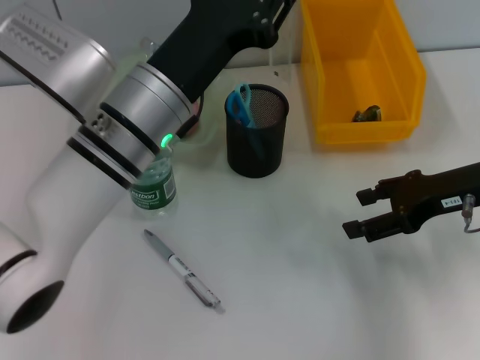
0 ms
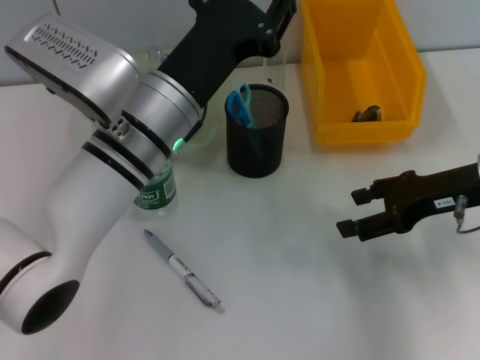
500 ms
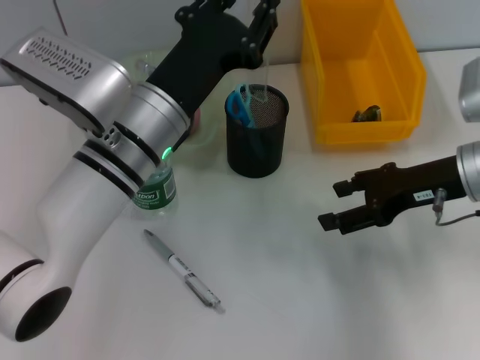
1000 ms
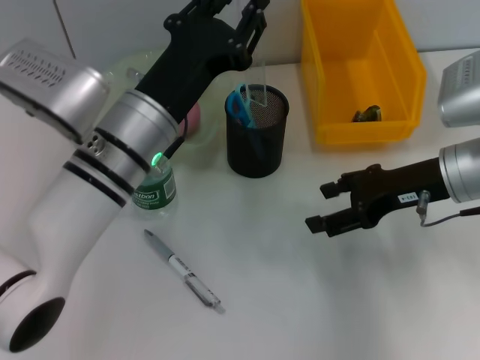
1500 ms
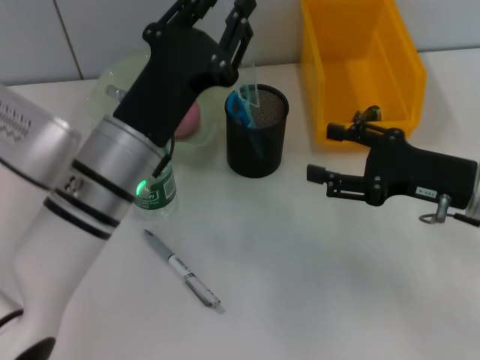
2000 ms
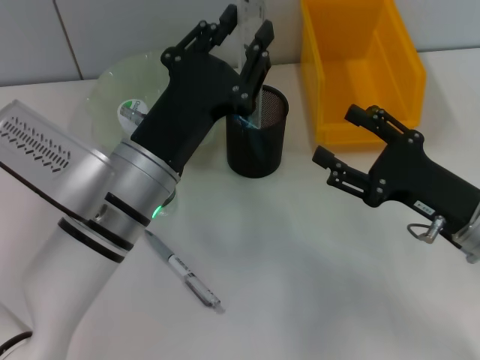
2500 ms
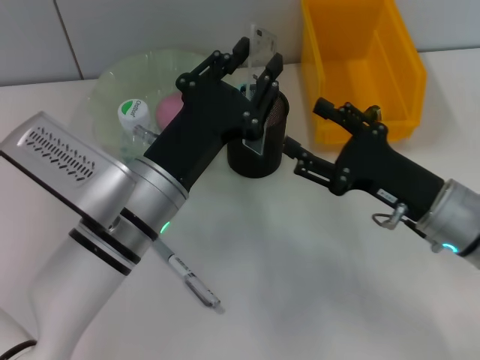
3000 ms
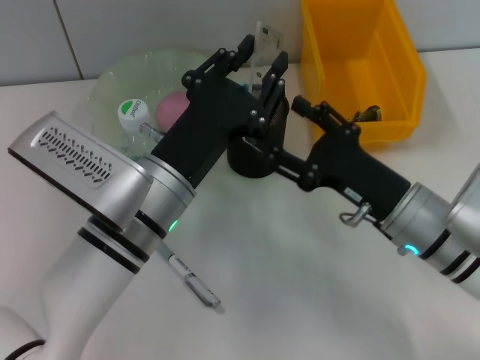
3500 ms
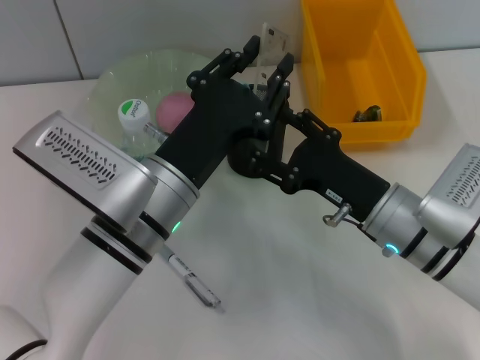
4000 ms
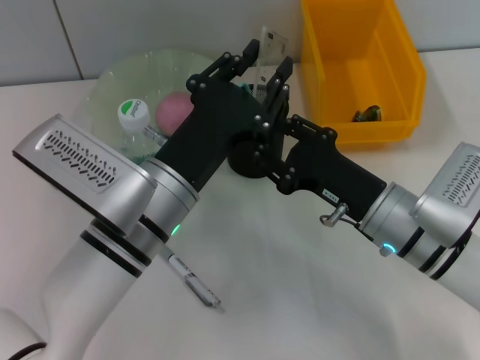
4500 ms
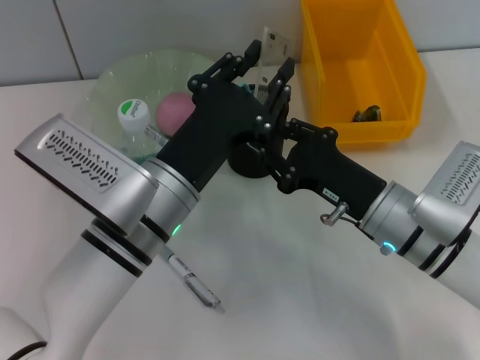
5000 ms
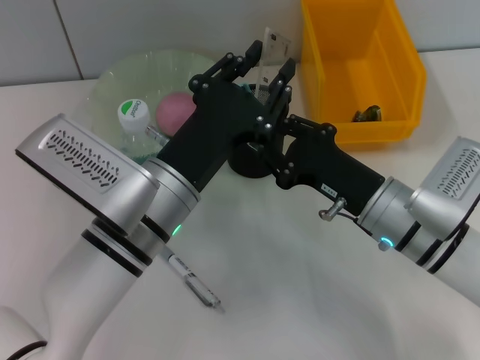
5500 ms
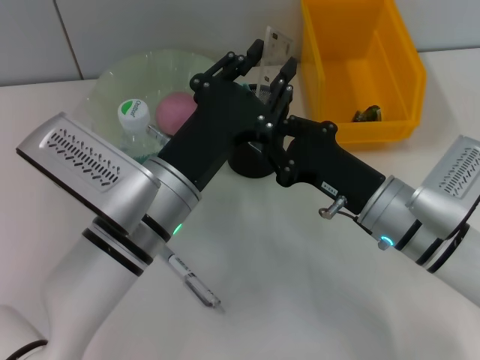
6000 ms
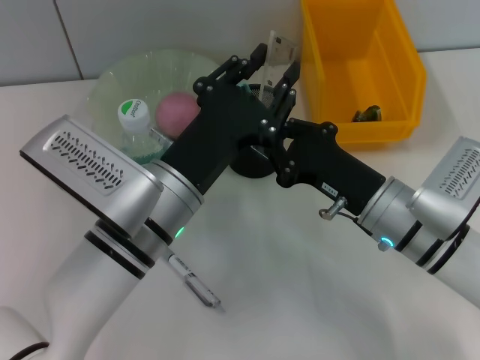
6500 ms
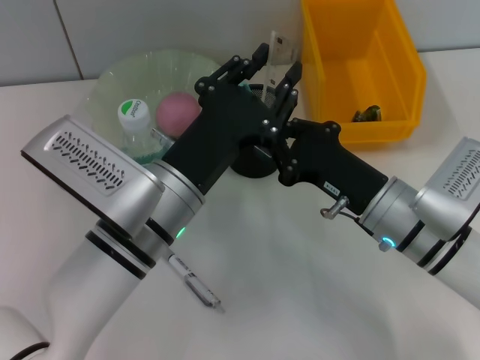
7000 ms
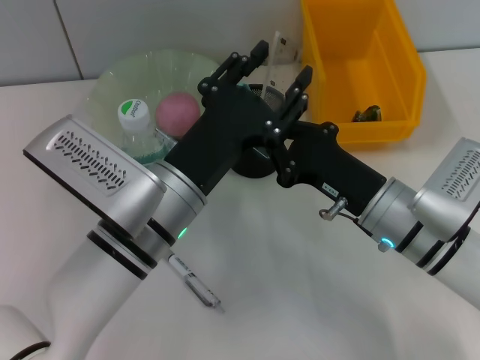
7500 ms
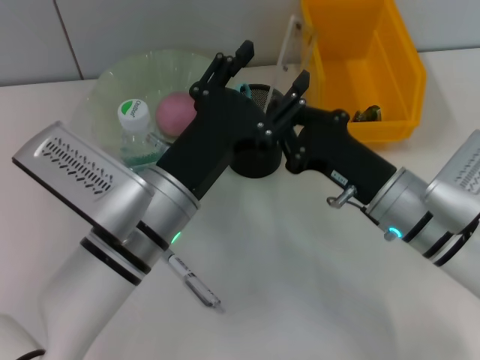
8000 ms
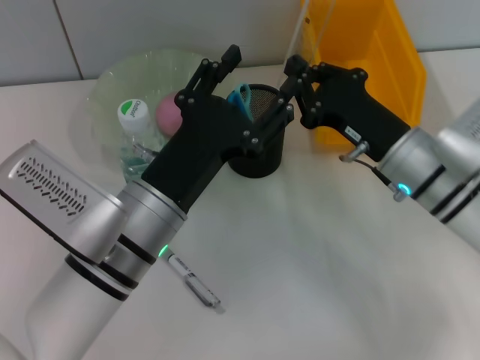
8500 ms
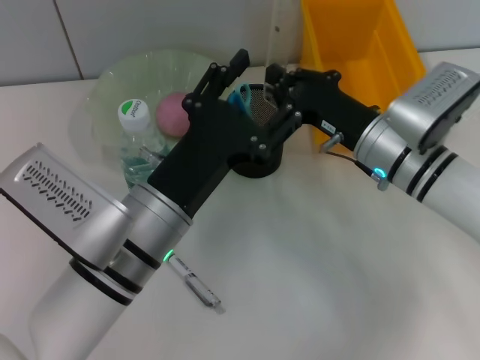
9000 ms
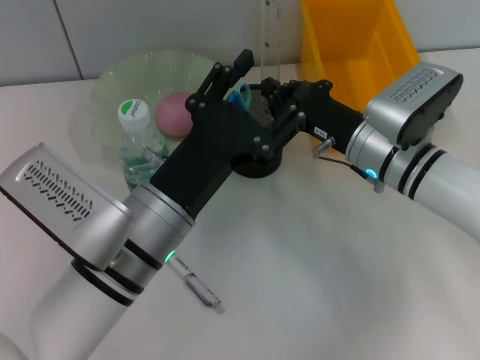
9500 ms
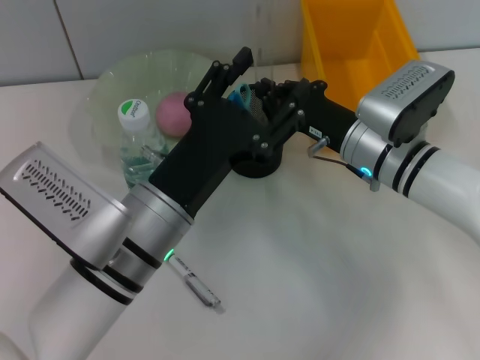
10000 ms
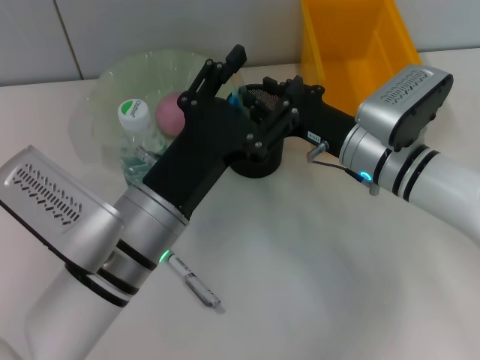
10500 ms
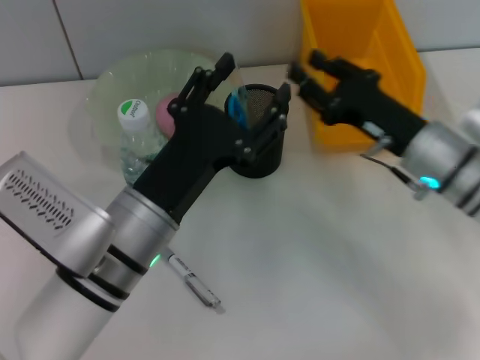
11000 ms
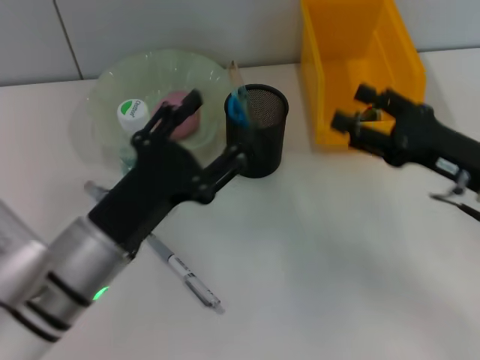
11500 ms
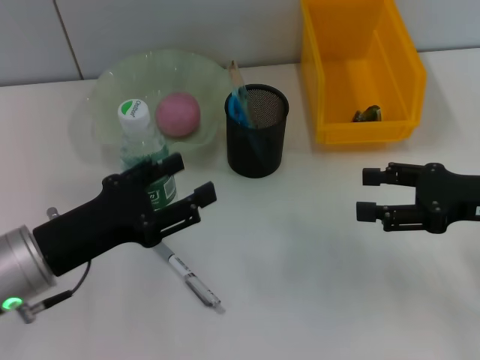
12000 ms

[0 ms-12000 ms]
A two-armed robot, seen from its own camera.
Step, 0 ms to 7500 ms: Pass the ruler from the left hand to the right hand.
Step, 8000 ms to 10500 ms: Place the ruler into the pen holder with the right hand.
2000 ms to 4000 ms: The right gripper goes approximately 10 cm to the left.
4000 ms to 6000 ms: The right gripper closes its fingers.
6000 ms to 8000 ms: The left gripper opens up.
8000 ms to 10000 ms: The right gripper shifts about 5 cm forward.
10000 ms to 12000 ms: The left gripper heads to the left, covering about 10 cm, while the right gripper heads to the right and backward, covering roughly 15 cm, and opens its fingers.

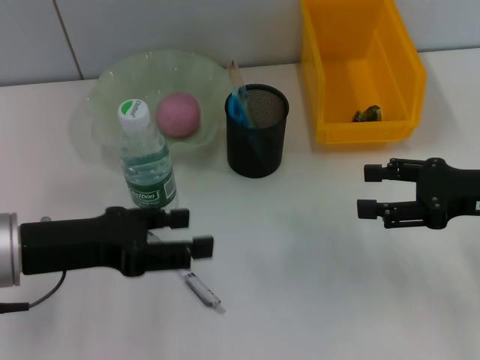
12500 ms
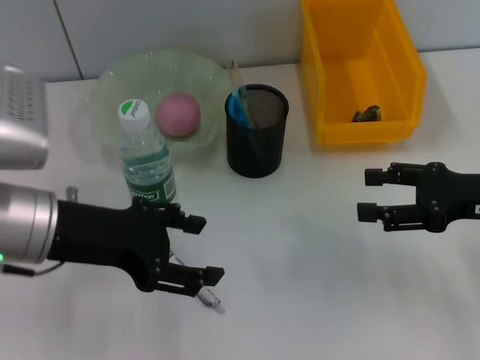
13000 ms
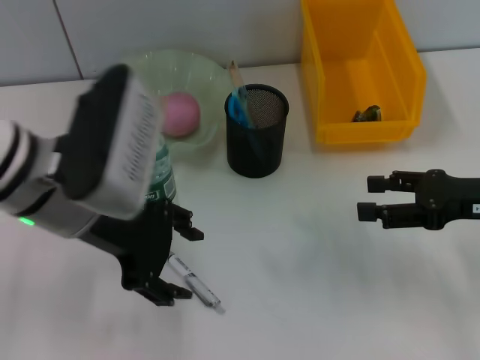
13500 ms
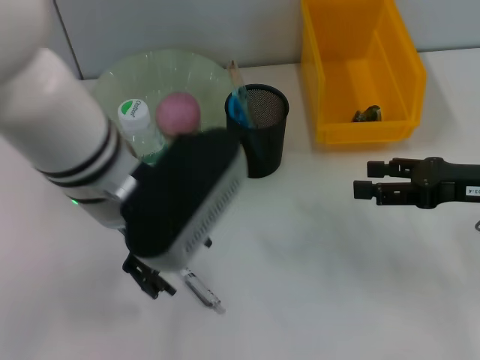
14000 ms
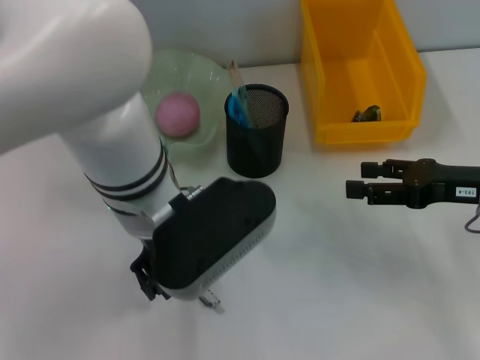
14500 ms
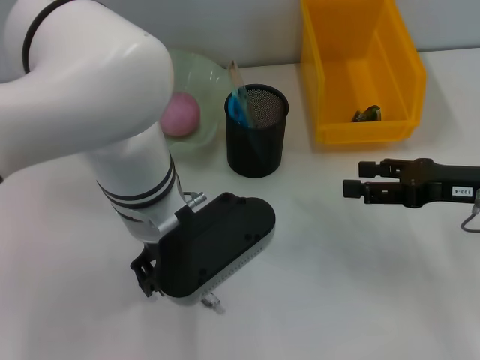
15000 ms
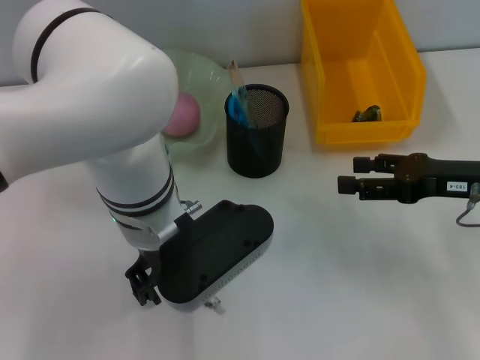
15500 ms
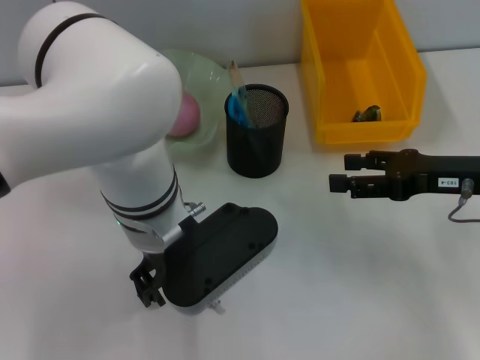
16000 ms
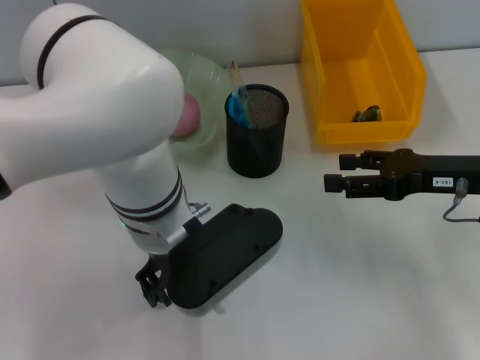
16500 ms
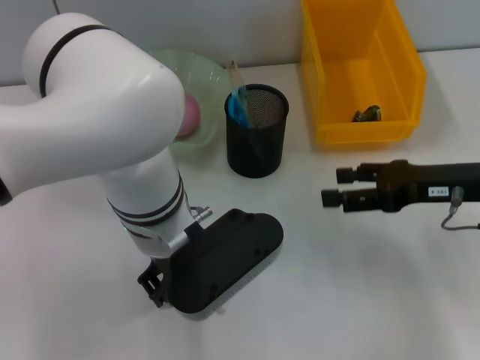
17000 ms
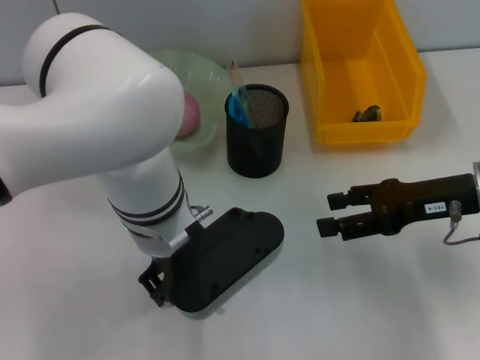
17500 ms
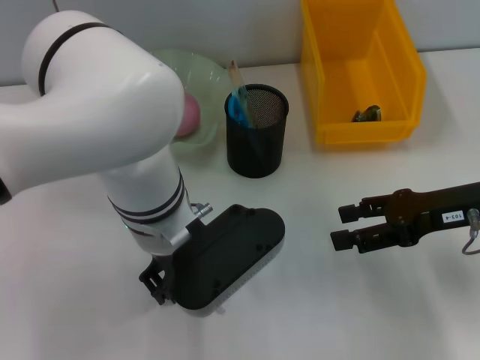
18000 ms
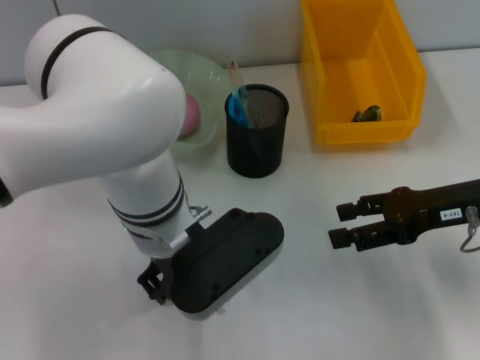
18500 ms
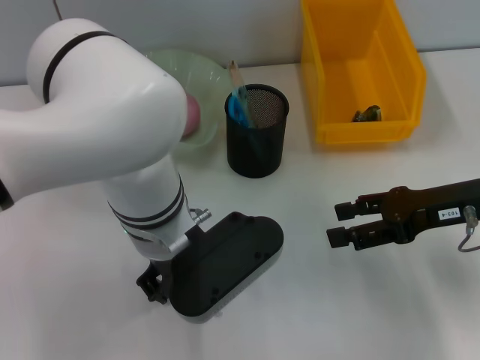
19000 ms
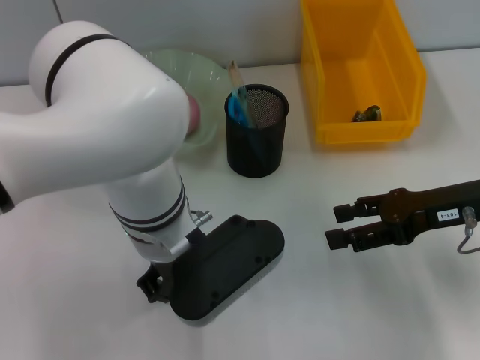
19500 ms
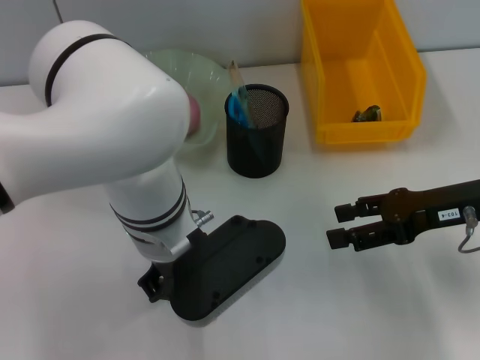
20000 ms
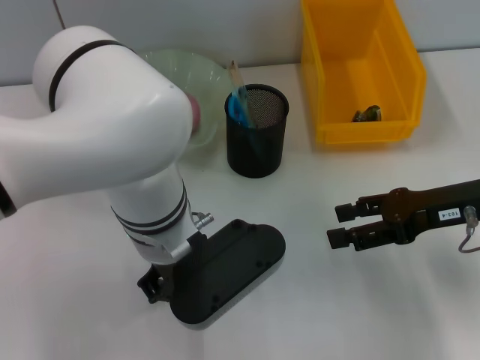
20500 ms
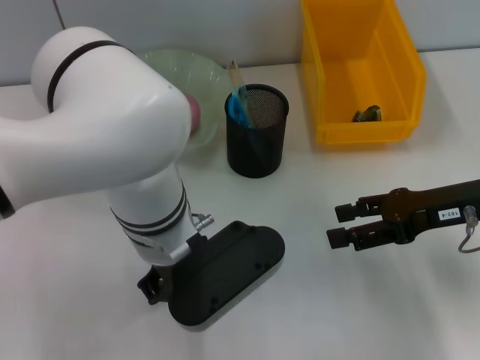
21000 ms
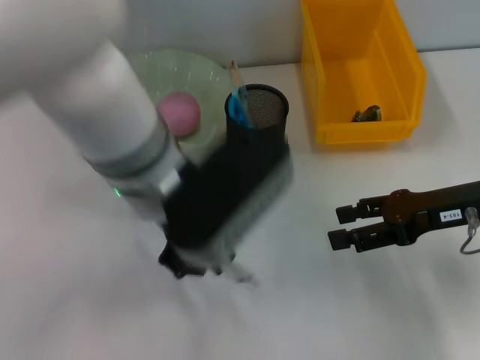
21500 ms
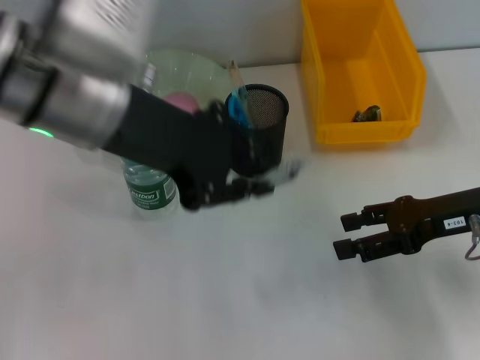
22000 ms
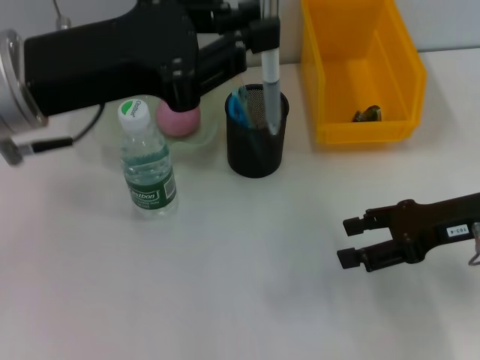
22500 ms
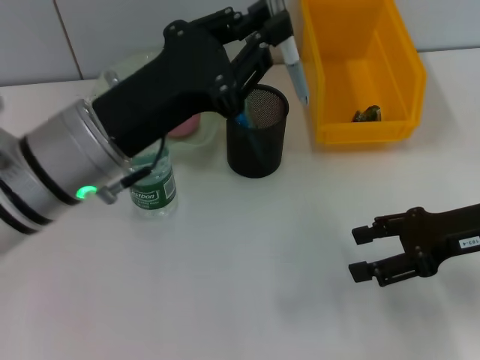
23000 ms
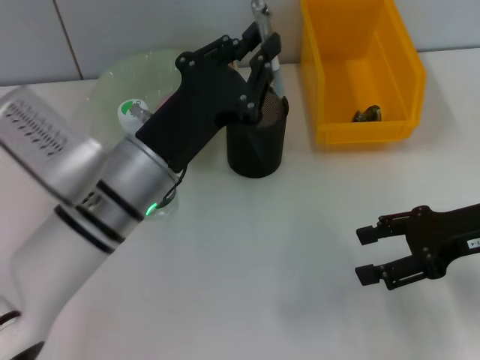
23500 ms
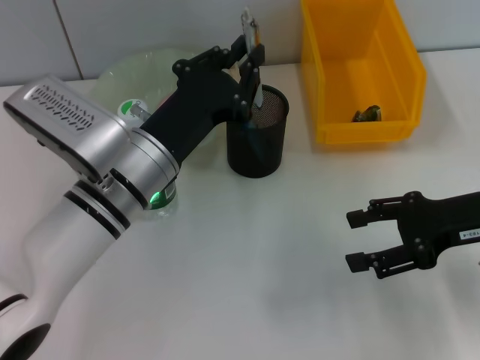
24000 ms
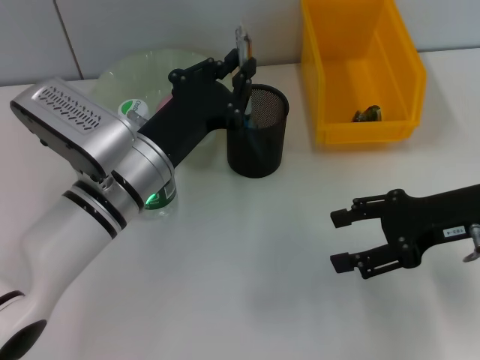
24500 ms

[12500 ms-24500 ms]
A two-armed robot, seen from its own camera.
Step, 12500 ms to 19500 ms: Grab the gray spring-action pen with the left hand.
12500 ms to 14500 ms: The left gripper is displaced to the right by about 15 cm.
16500 ms to 18500 ms: There are only small adjustments of the grippers.
18500 ms to 20500 ms: The left gripper closes up.
20500 ms to 22500 ms: The left gripper is displaced to the left and upward by roughly 15 cm.
22500 ms to 24500 ms: The left gripper shifts about 15 cm downward and to the right.

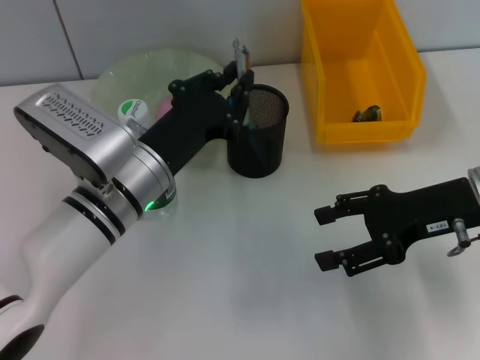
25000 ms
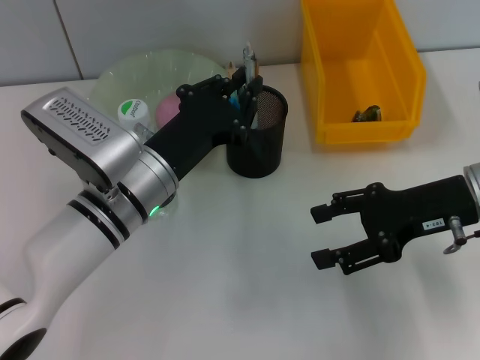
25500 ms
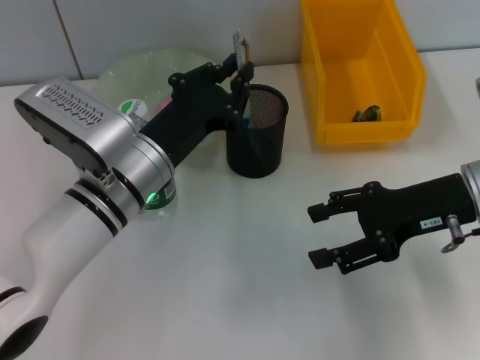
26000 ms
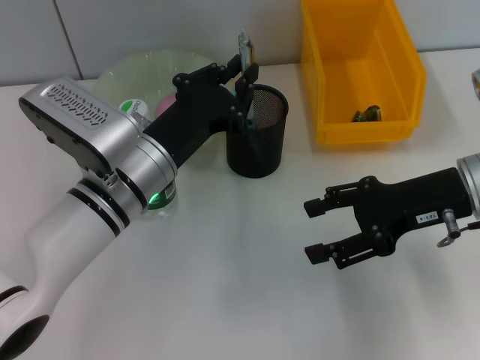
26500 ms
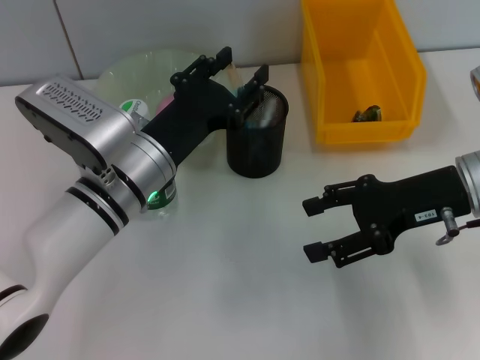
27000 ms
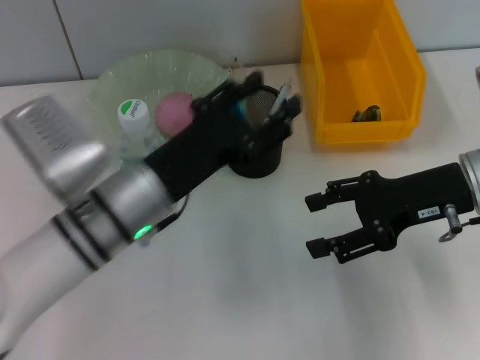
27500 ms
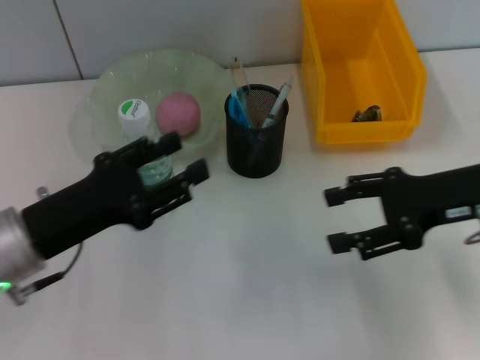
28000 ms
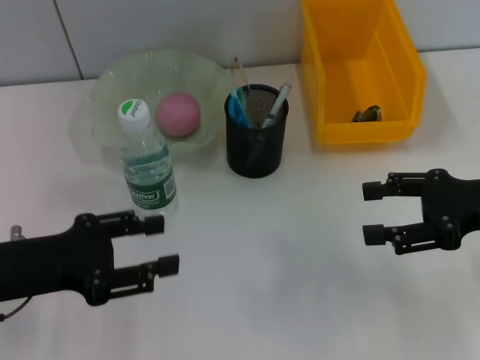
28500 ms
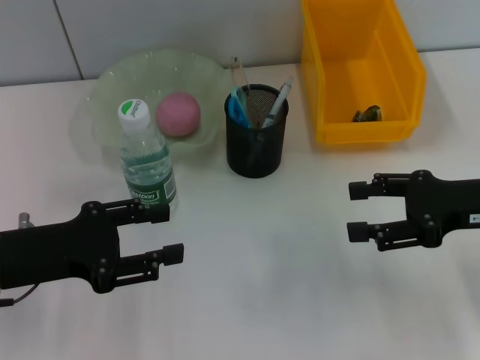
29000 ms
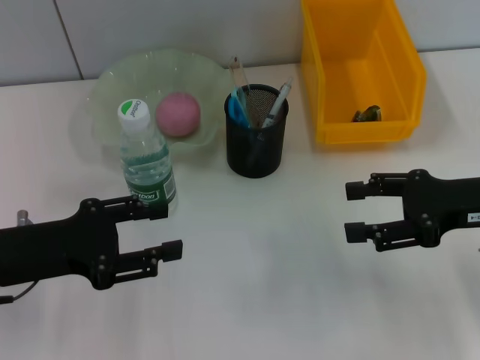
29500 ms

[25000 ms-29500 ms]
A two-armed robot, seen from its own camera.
25000 ms to 27000 ms: There are only small adjustments of the grippers.
27000 ms to 29500 ms: The left gripper moves to the left, about 15 cm, and opens. The right gripper shifts by roughly 5 cm.
